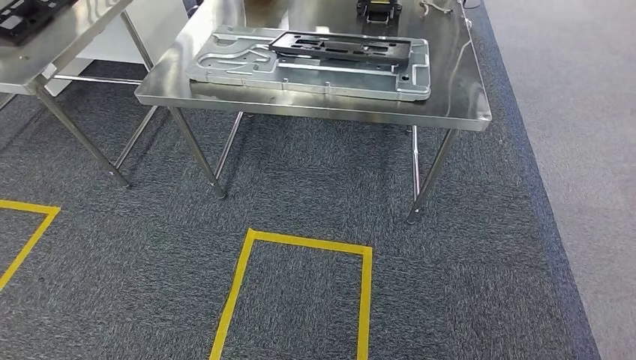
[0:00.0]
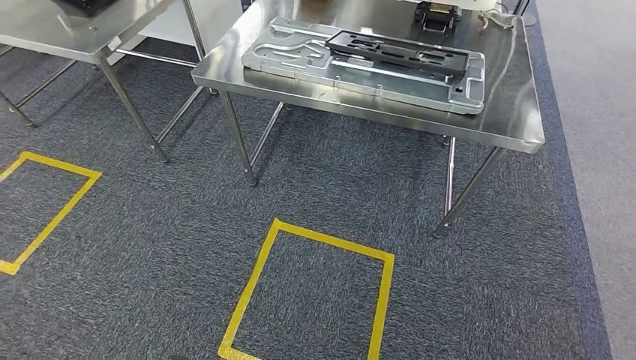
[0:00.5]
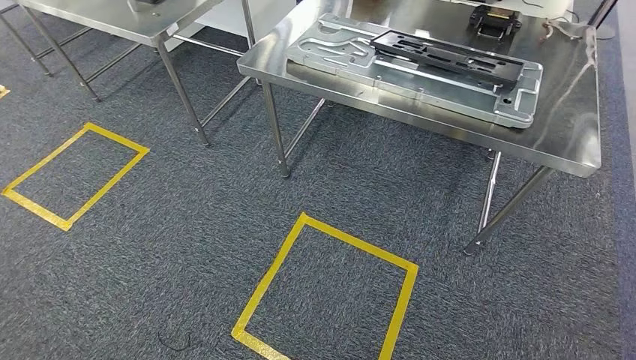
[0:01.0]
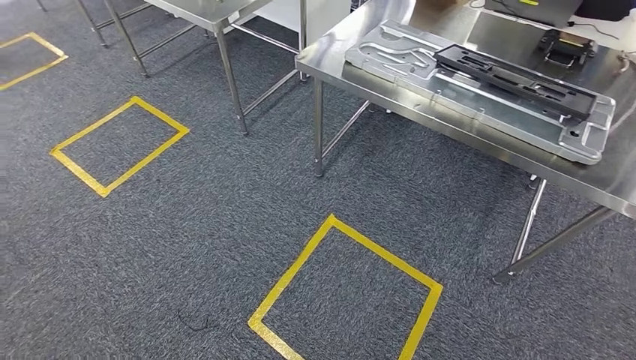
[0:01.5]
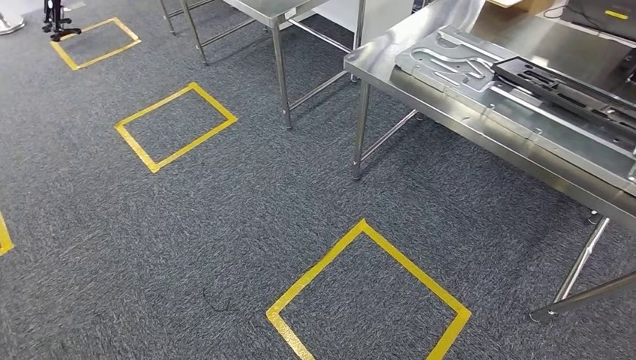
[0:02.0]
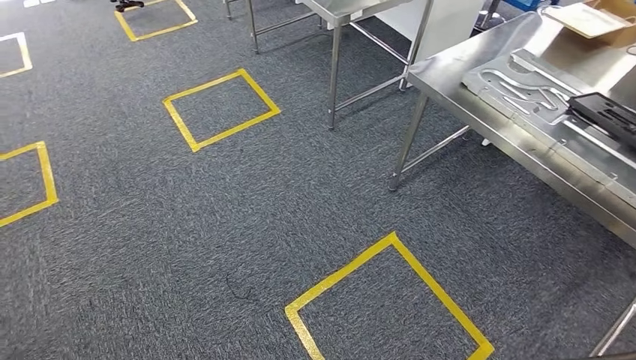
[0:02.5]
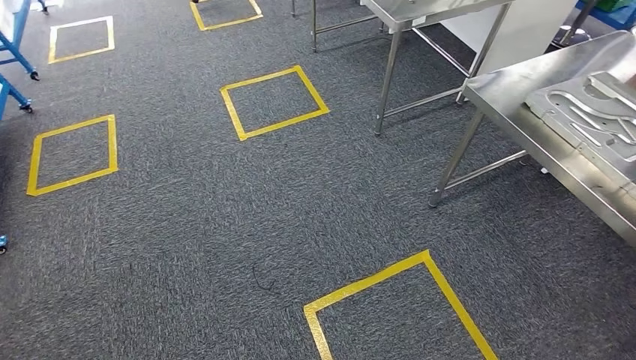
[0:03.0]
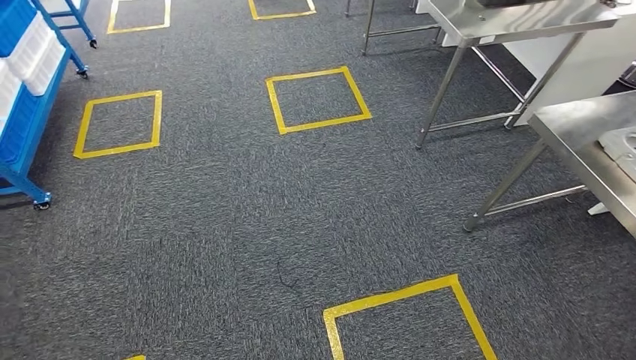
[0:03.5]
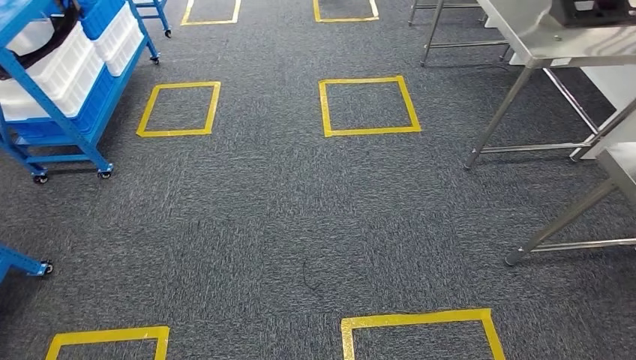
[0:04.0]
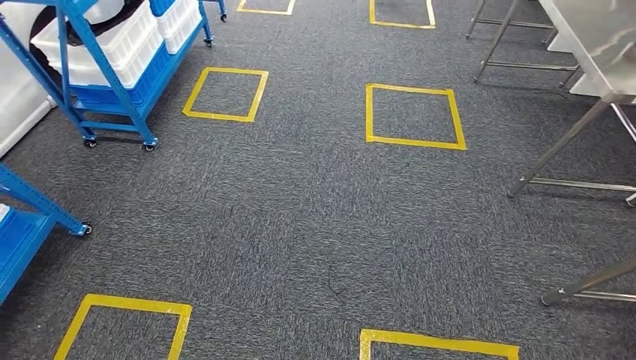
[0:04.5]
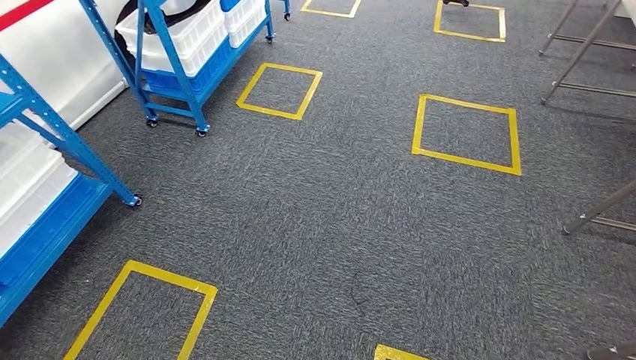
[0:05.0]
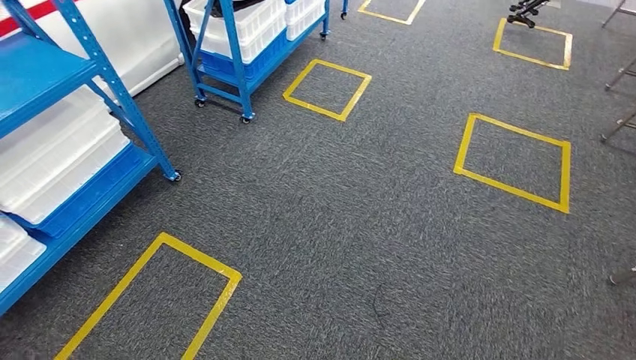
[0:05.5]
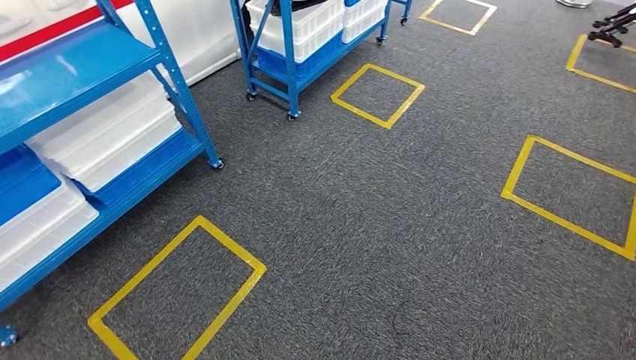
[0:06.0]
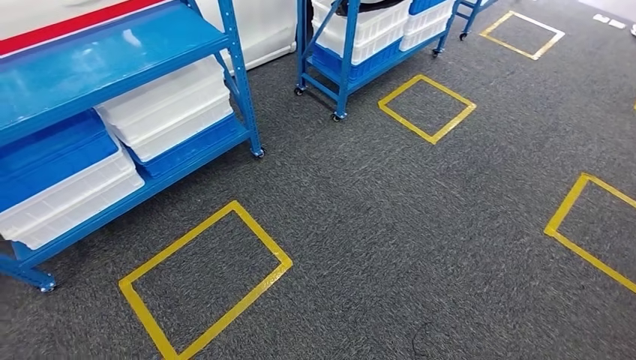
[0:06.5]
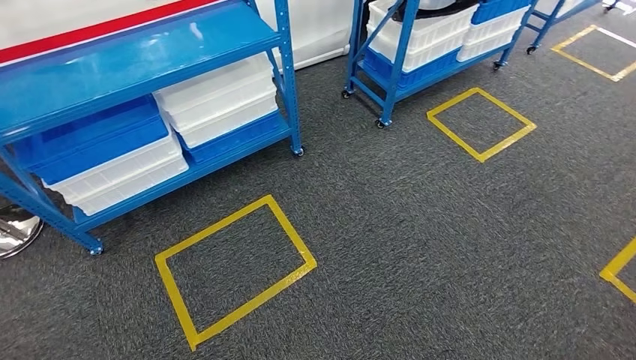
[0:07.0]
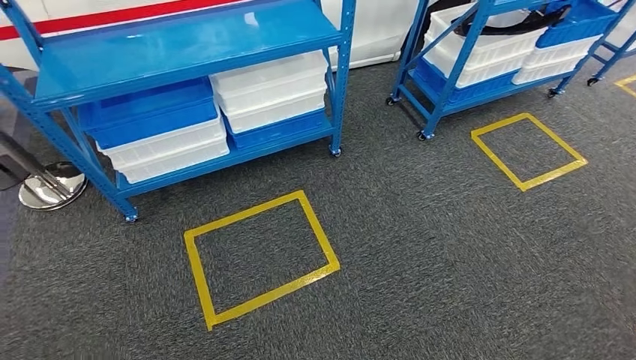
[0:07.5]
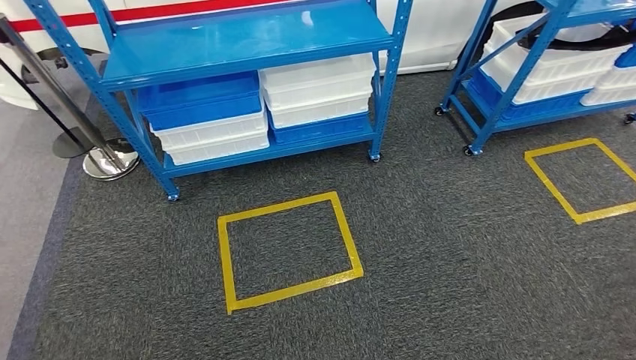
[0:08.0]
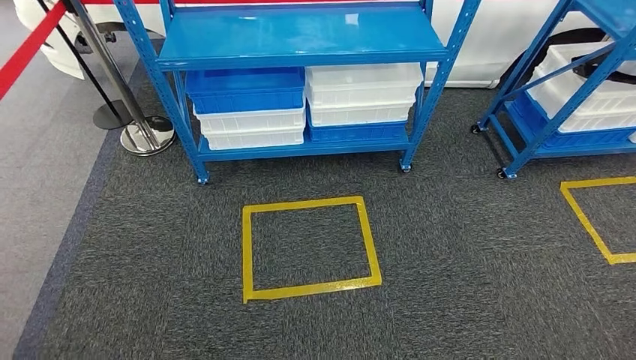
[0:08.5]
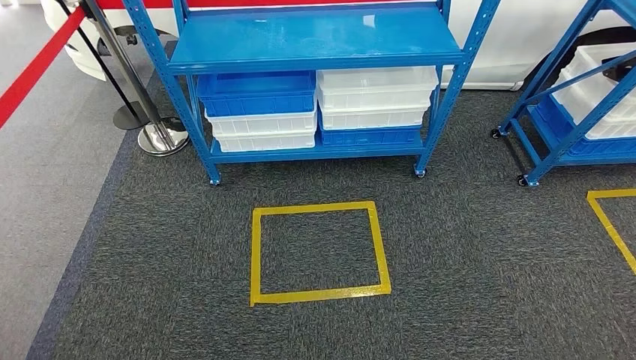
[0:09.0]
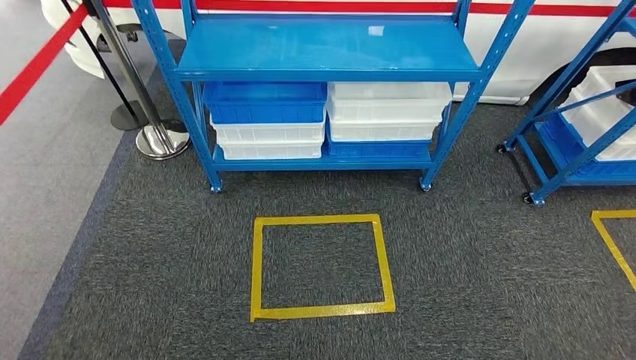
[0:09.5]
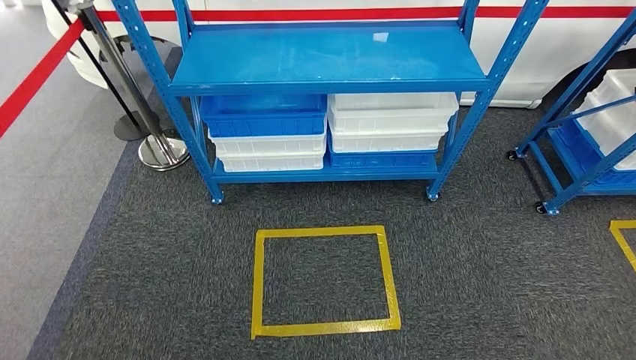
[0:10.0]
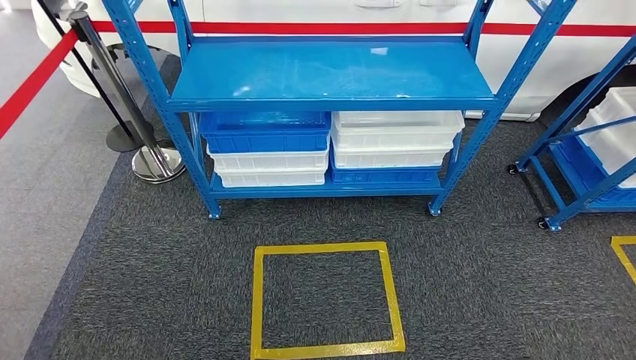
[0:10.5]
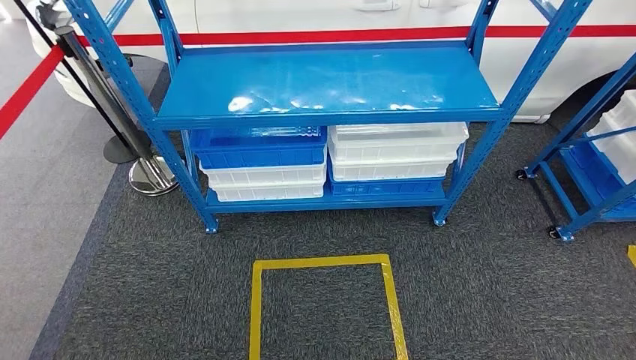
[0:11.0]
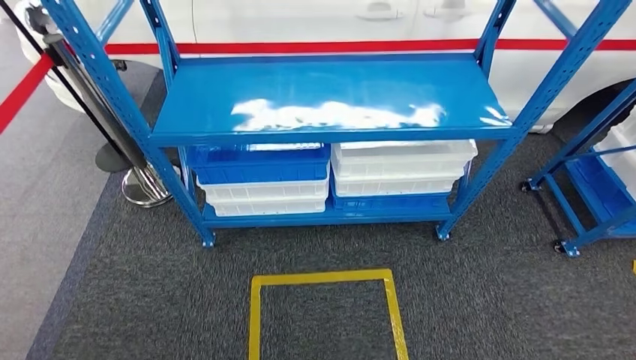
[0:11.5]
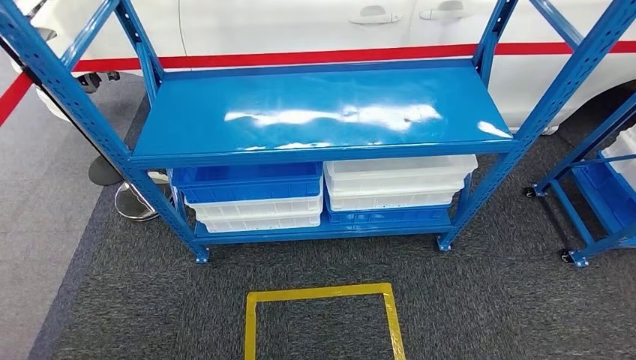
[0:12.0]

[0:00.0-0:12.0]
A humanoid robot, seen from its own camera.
Step, 0:00.0 to 0:12.0: Move to the initial position of the shelf.
